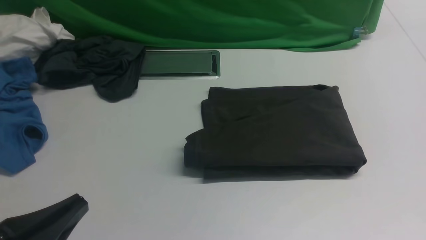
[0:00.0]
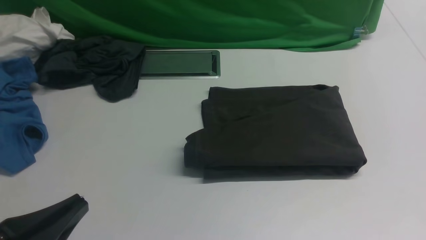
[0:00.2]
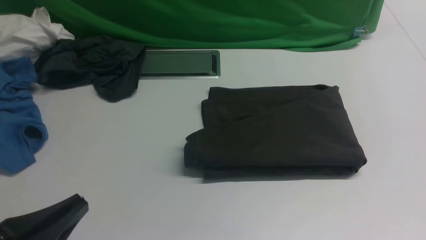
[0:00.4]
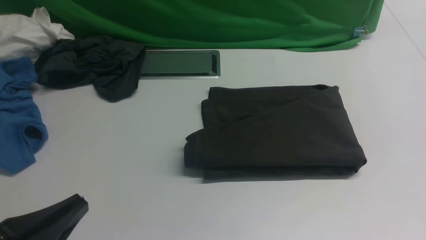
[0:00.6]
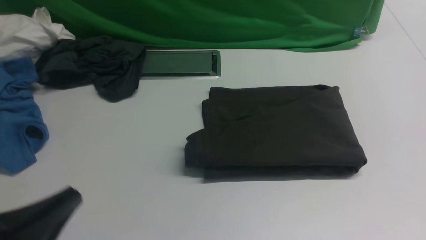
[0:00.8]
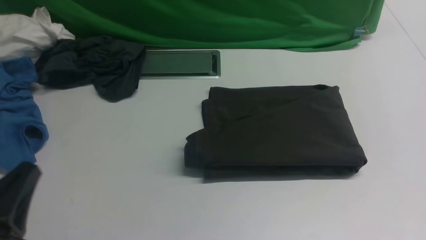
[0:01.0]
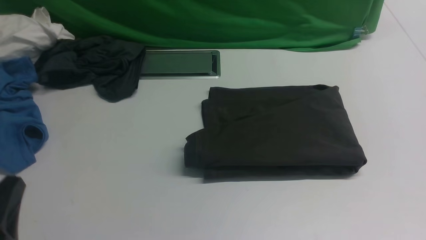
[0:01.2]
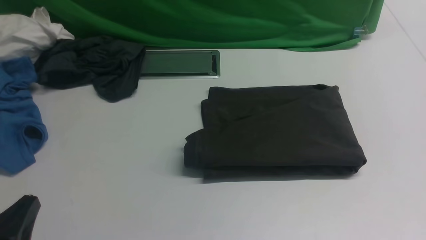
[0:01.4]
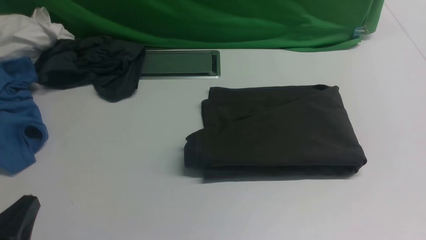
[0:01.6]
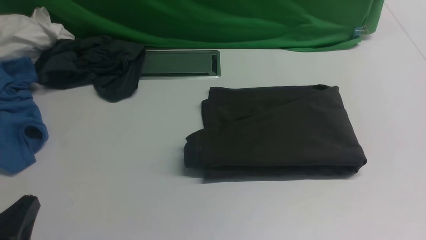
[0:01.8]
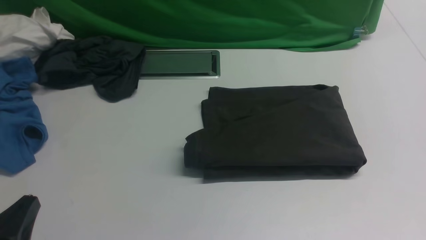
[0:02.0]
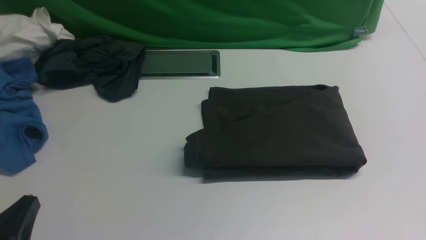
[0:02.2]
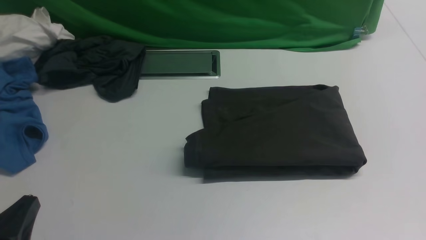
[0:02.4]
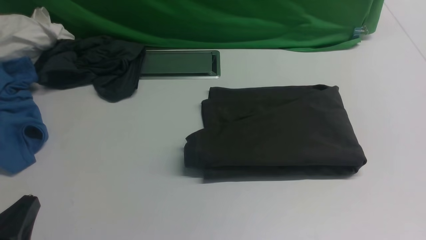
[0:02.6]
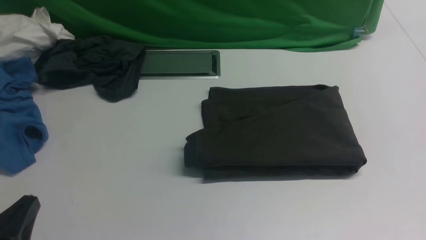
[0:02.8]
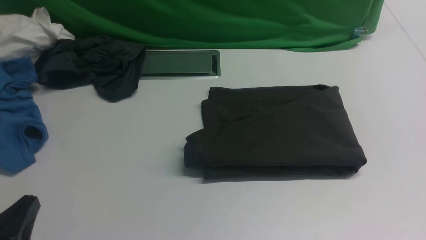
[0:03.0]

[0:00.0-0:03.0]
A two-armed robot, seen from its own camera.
0:00.0 to 0:01.6: The left gripper moves some 5 cm.
0:01.6 to 0:03.0: Both grippers stay about where they are.

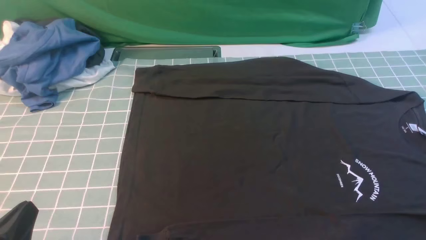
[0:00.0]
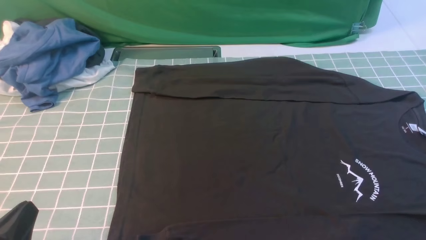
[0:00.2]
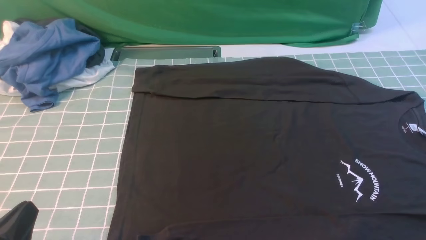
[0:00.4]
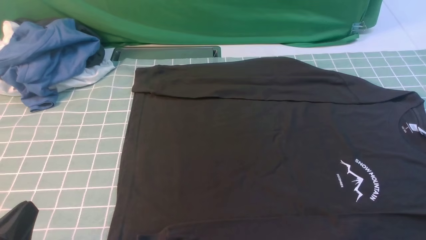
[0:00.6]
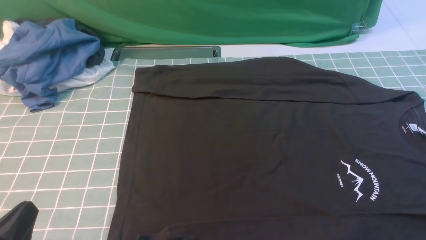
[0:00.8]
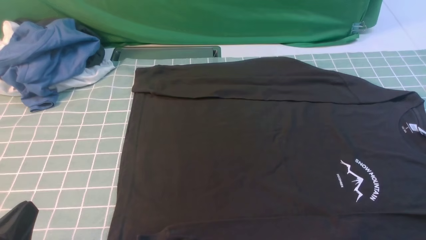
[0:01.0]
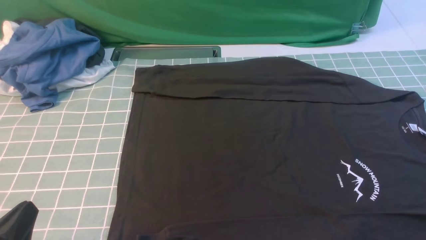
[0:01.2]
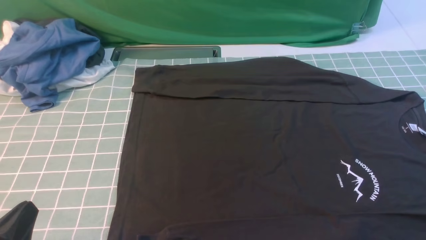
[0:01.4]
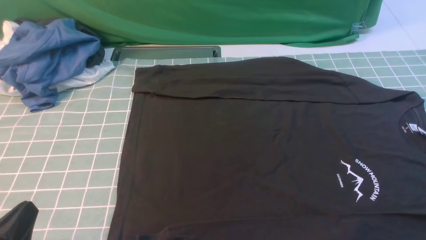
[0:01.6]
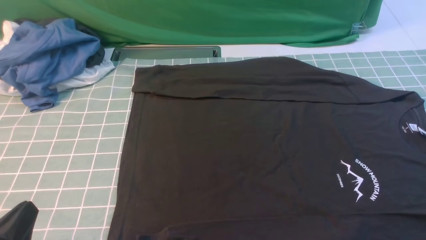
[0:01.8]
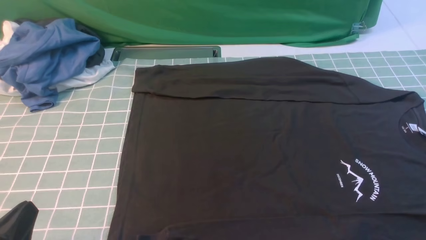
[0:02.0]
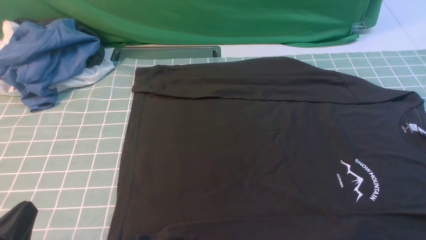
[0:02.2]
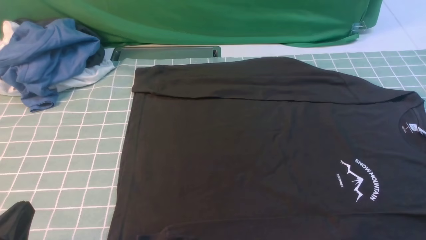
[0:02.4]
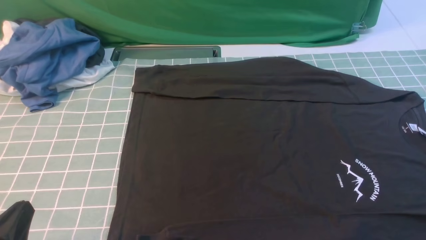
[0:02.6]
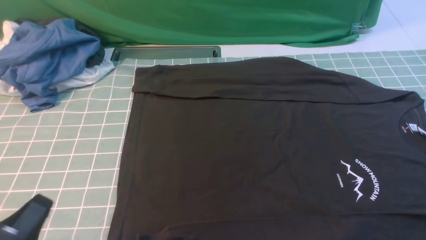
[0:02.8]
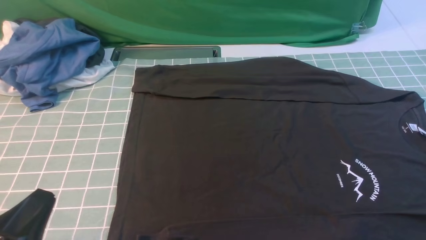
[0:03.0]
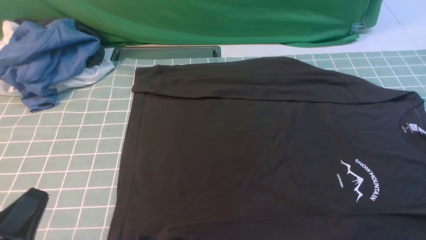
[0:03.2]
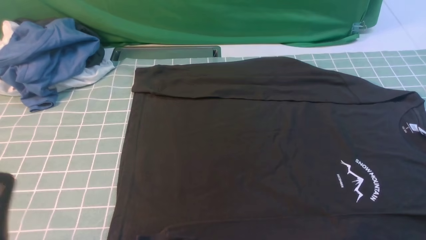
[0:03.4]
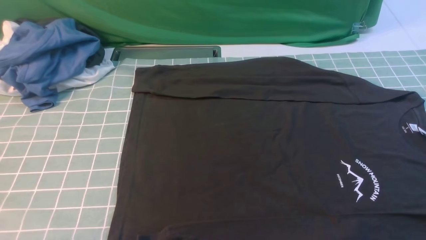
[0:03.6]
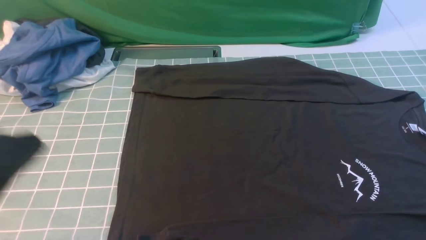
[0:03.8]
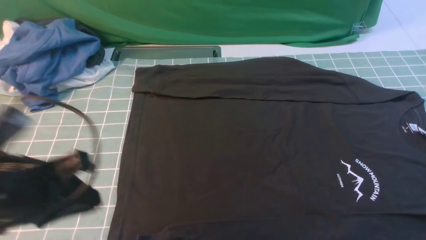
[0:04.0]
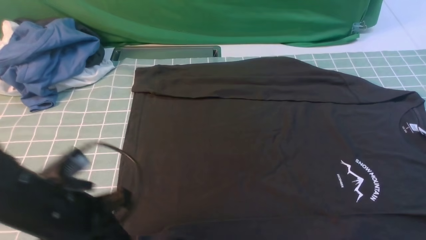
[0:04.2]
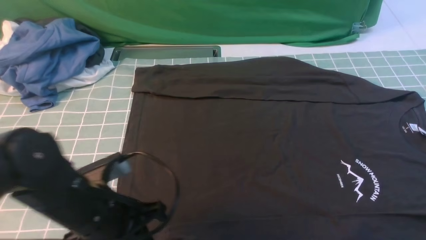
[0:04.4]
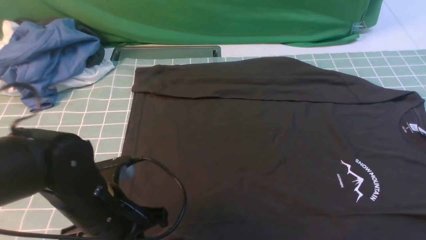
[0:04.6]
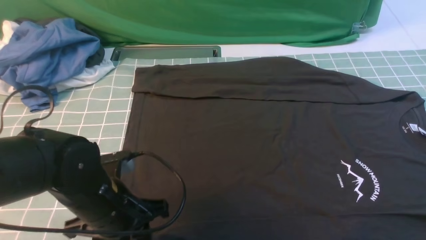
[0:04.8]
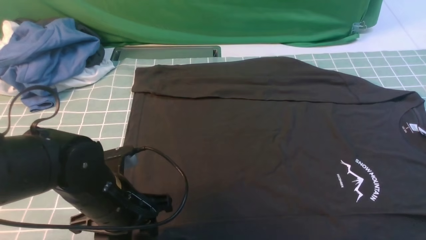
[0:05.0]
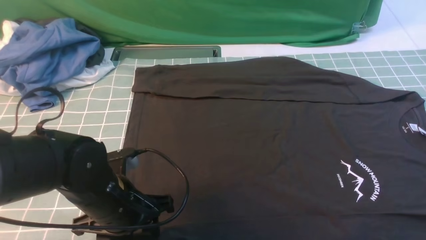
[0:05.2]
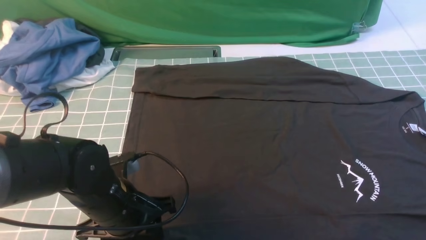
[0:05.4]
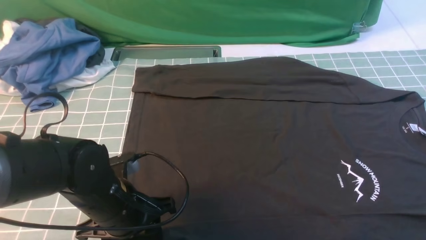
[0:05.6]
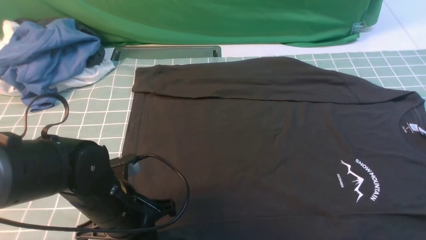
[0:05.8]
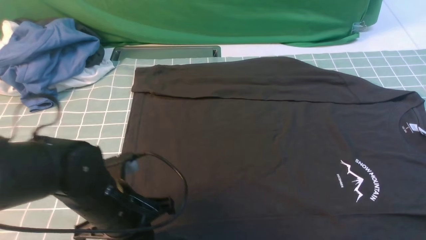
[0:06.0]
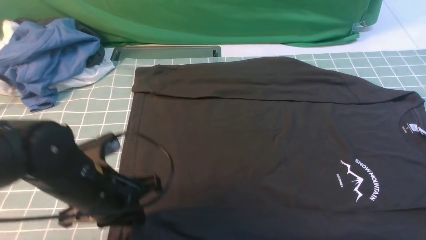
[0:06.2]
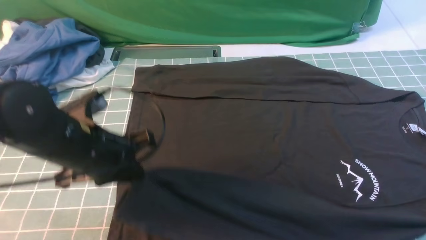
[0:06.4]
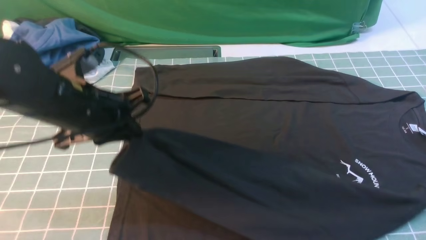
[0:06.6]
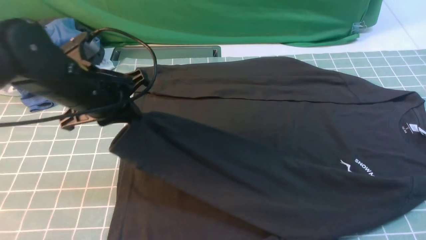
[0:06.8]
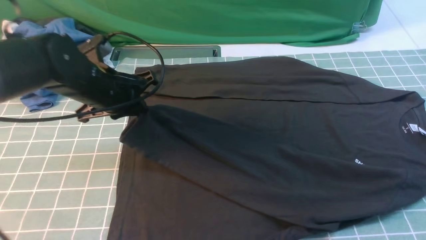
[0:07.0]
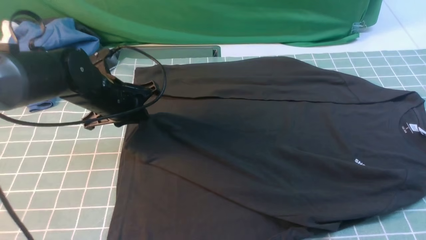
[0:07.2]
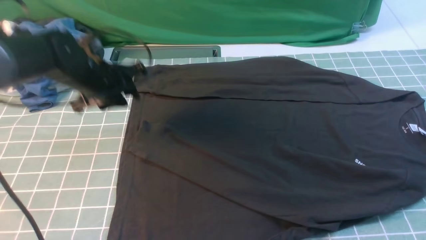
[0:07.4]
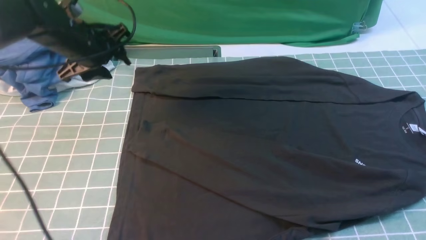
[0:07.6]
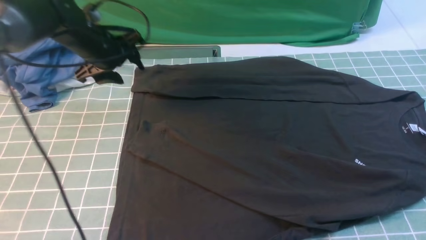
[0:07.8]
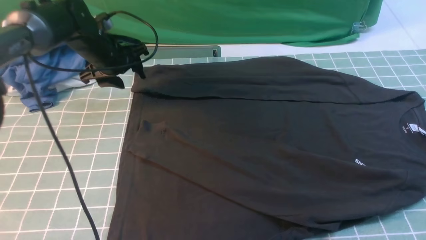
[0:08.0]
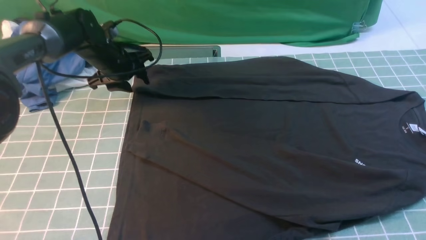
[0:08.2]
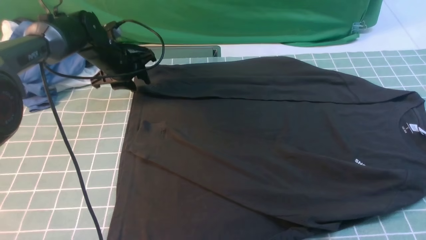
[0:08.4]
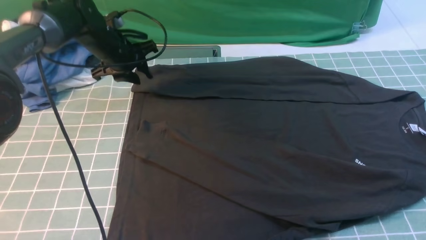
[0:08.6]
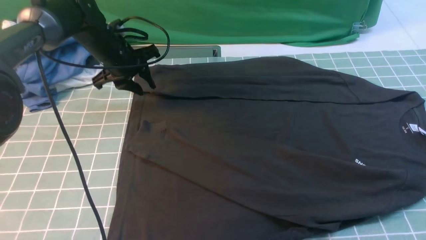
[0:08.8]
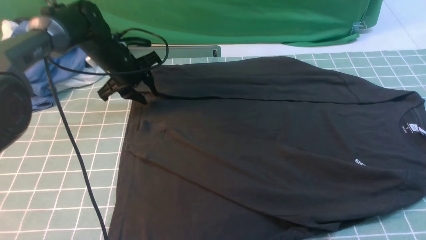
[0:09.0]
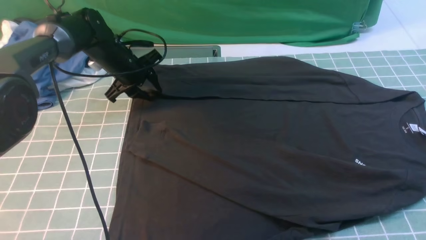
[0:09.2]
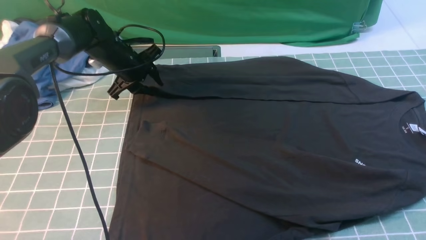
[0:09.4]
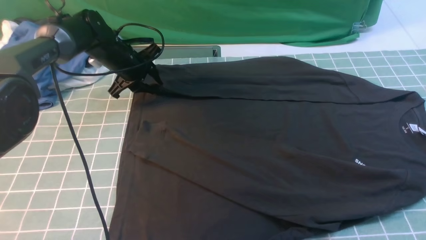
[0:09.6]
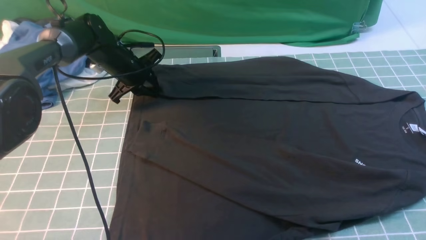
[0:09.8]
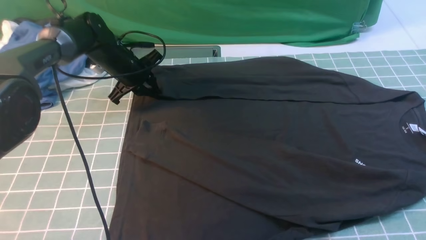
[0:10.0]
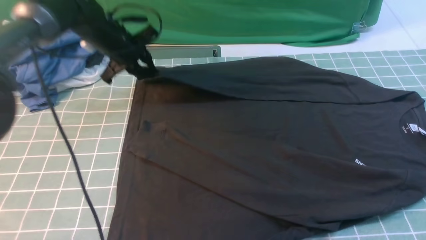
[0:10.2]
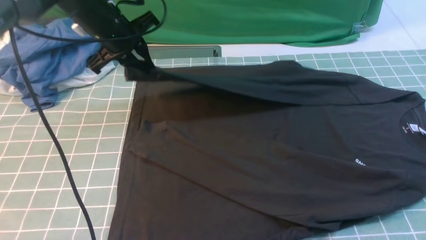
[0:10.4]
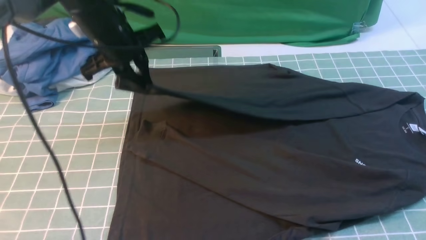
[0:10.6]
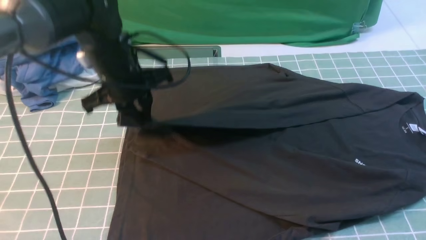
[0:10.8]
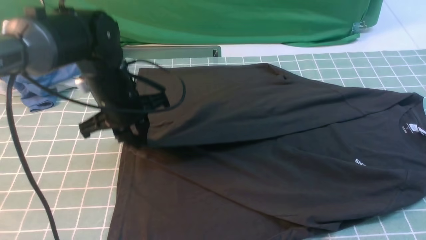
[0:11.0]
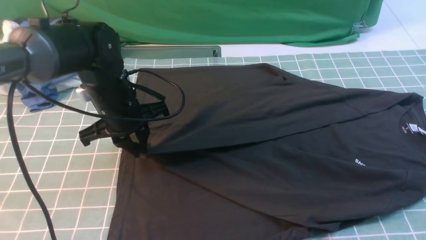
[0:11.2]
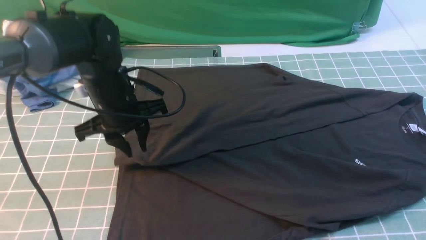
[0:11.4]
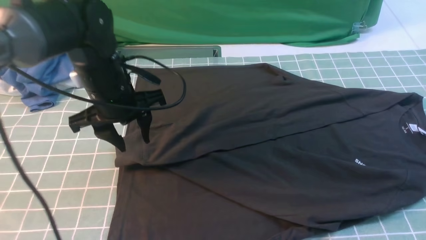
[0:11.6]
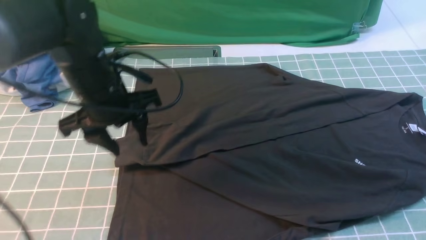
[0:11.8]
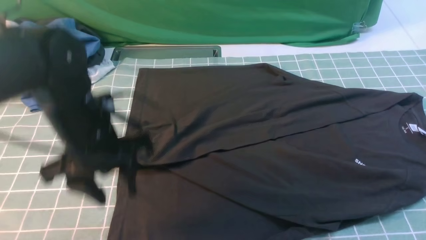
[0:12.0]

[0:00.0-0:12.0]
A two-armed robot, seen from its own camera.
Step, 0:00.0 to 0:06.0: use the left arm to clamp the cuff closest to it.
Step, 0:06.2 to 0:07.2: use the left arm to drag and place the cuff at the centered position on the left edge of the fabric.
Step, 0:07.4 to 0:09.8: use the left arm to clamp the cuff farthest from it.
Step, 0:10.0 to 0:11.4: use the left arm to drag and drop the cuff onto the cuff closest to the left arm.
0:00.0 to 0:01.6: The two grippers keep their place.
0:03.0 to 0:04.4: The left gripper heads forward and to the right, covering some 15 cm, while the right gripper travels upward and forward by about 20 cm, and closes up.
0:04.4 to 0:06.0: The left gripper opens, then closes again.
0:06.0 to 0:07.6: The left gripper heads forward, covering roughly 25 cm, and opens.
0:07.6 to 0:09.0: The left gripper moves downward and forward, about 10 cm.
0:09.0 to 0:10.4: The left gripper moves upward, about 10 cm, and closes up.
0:10.4 to 0:12.0: The left gripper shifts approximately 20 cm backward, and opens its fingers.

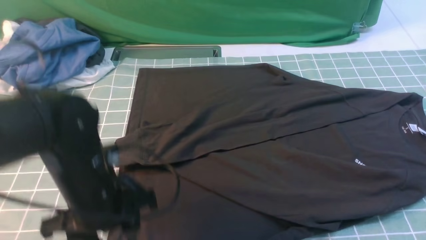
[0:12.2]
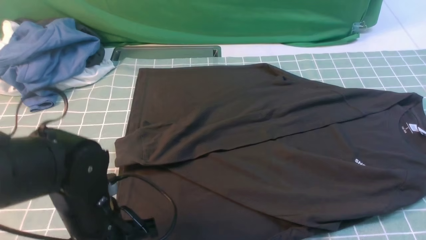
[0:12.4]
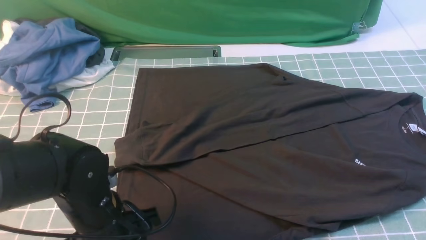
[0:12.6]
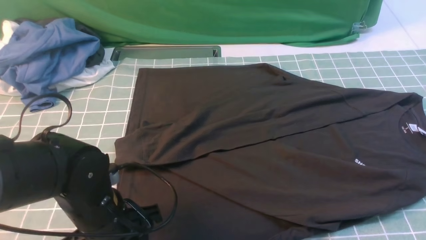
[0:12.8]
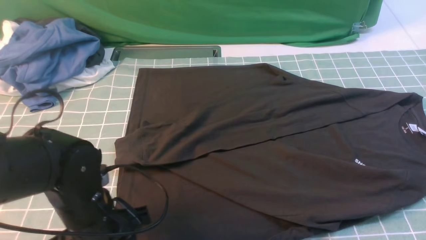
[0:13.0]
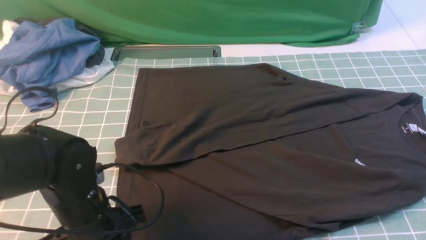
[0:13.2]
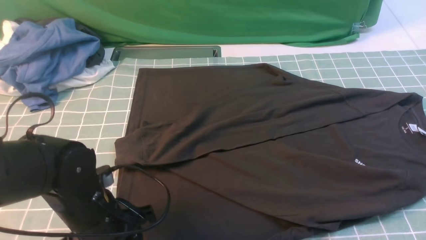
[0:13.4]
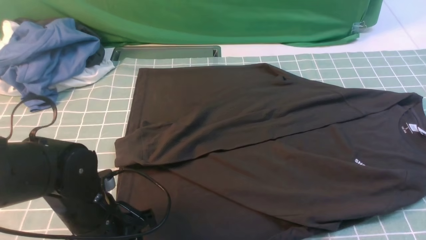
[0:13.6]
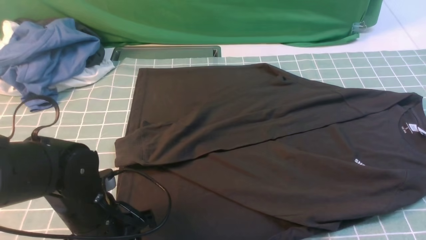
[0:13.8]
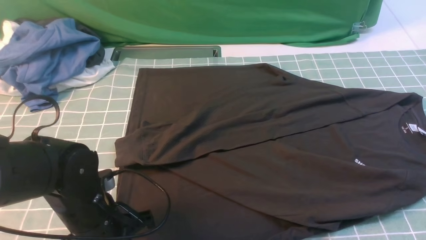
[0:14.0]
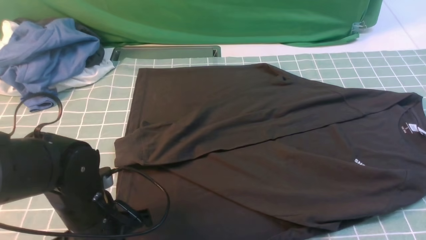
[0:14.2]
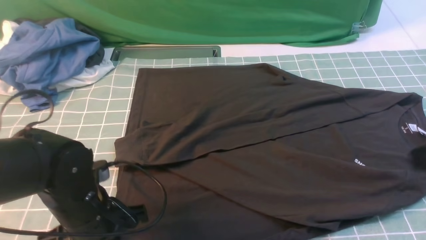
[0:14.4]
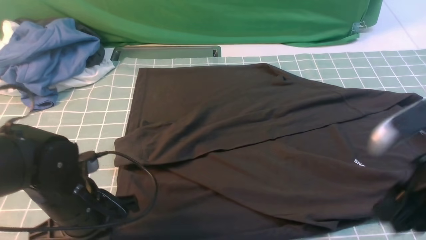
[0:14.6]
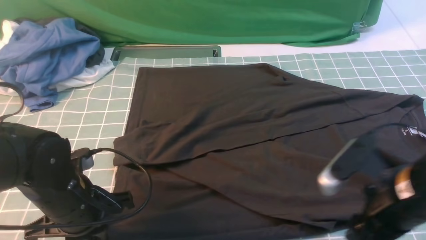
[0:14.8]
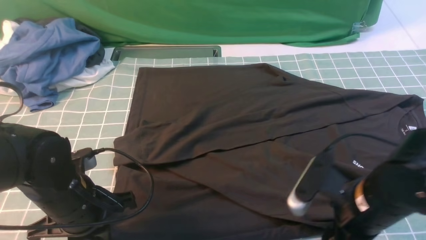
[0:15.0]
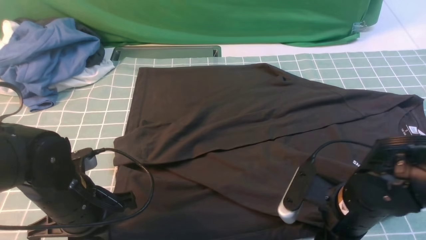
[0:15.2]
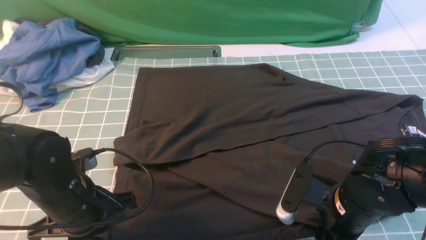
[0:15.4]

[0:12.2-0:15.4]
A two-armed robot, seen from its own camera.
0:12.2 to 0:13.8: The left gripper changes place by approximately 5 cm.
0:13.8 to 0:15.4: The left gripper closes. The right gripper is displaced downward and to the left by roughly 25 cm.
